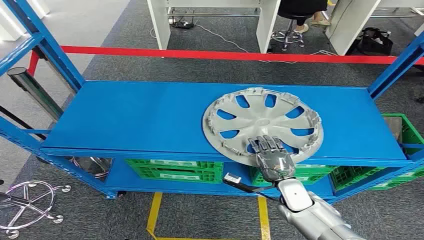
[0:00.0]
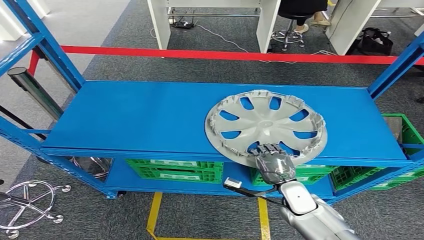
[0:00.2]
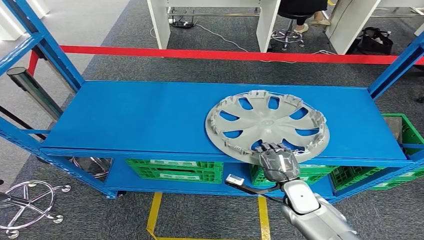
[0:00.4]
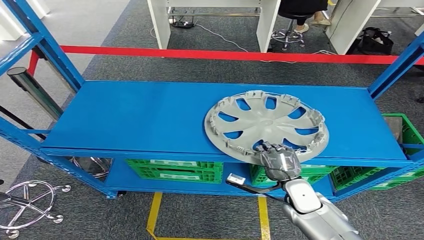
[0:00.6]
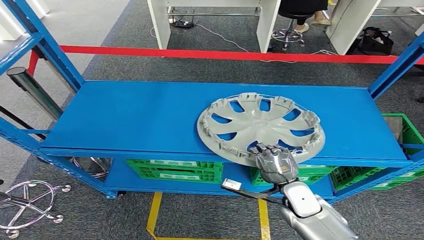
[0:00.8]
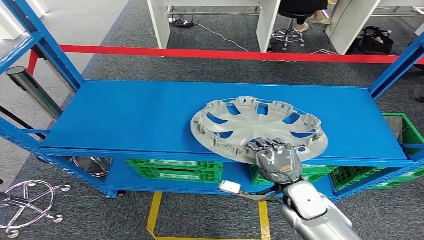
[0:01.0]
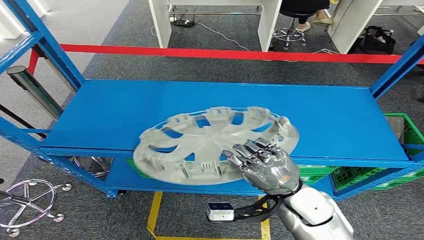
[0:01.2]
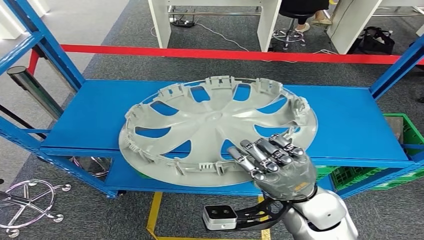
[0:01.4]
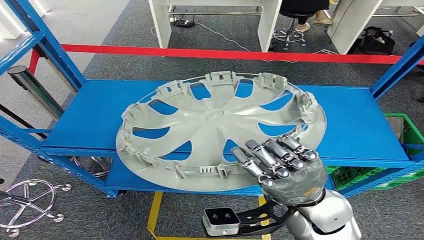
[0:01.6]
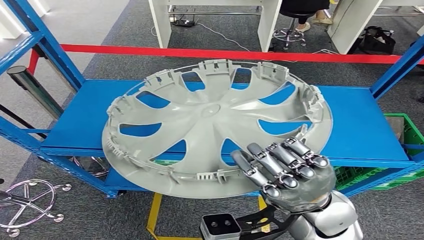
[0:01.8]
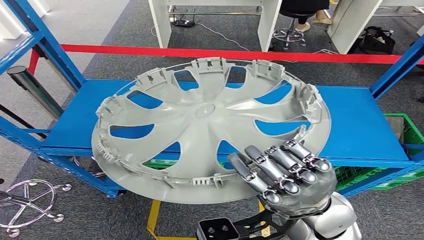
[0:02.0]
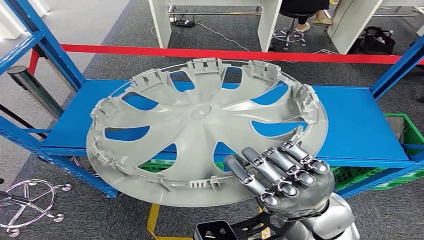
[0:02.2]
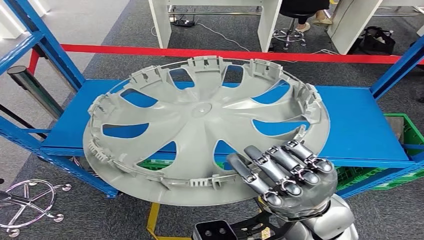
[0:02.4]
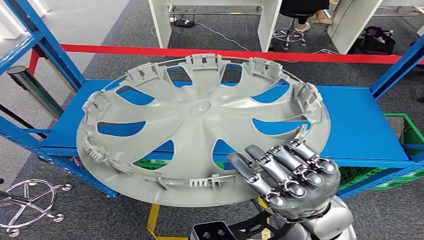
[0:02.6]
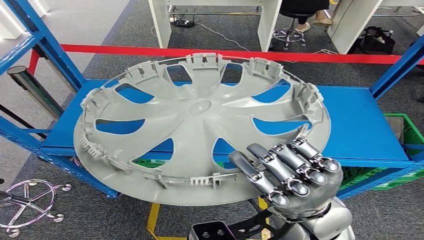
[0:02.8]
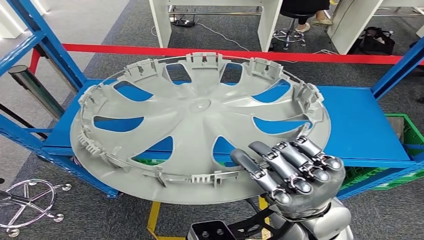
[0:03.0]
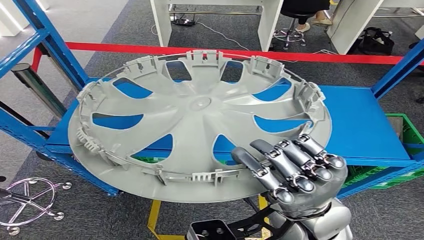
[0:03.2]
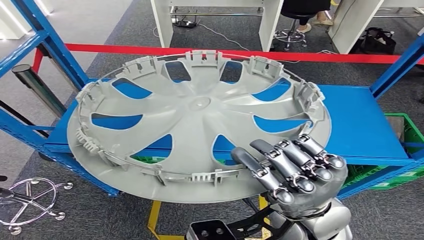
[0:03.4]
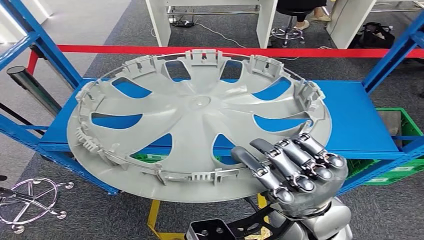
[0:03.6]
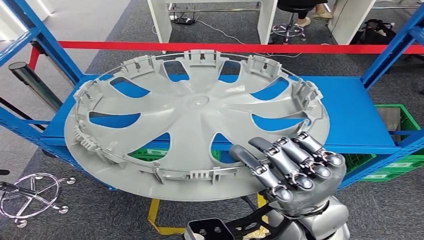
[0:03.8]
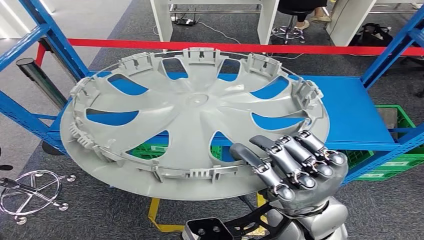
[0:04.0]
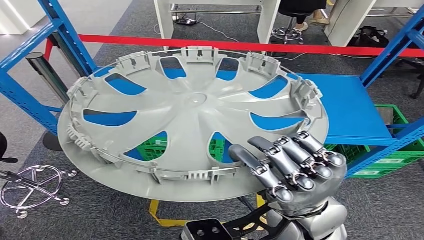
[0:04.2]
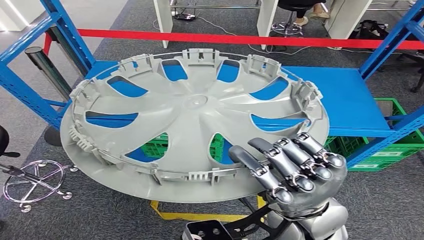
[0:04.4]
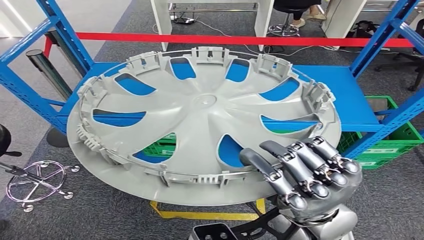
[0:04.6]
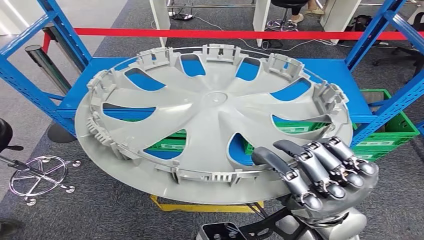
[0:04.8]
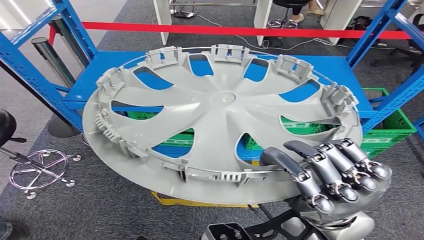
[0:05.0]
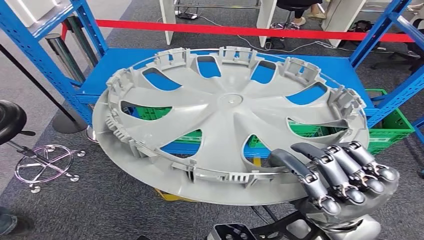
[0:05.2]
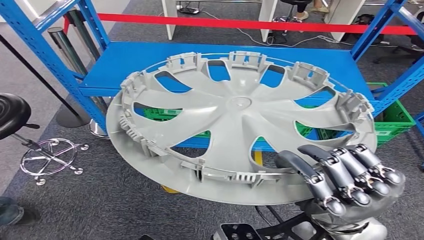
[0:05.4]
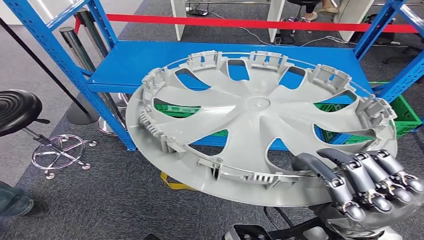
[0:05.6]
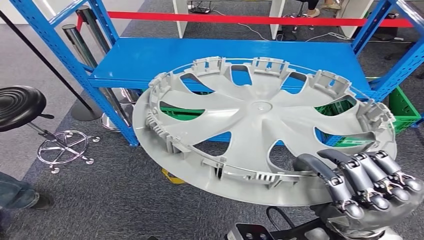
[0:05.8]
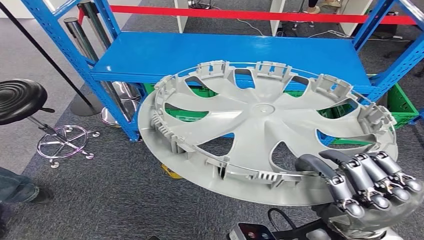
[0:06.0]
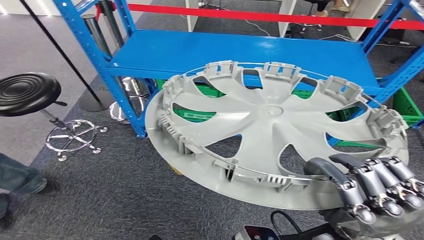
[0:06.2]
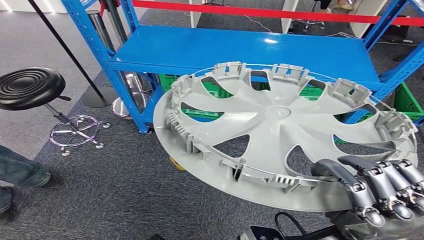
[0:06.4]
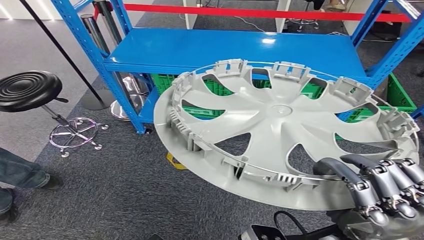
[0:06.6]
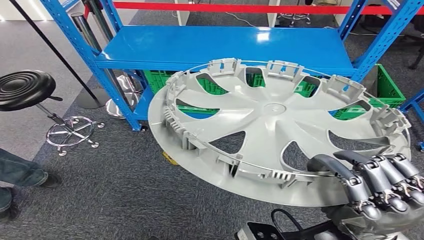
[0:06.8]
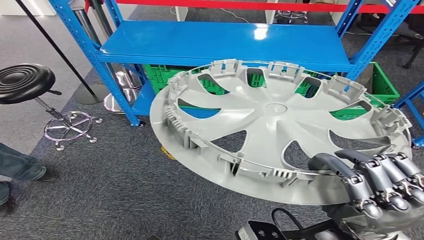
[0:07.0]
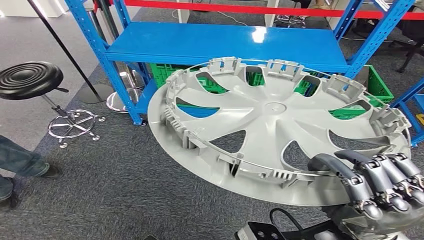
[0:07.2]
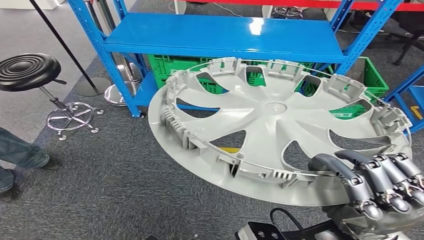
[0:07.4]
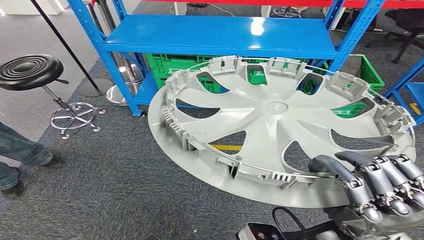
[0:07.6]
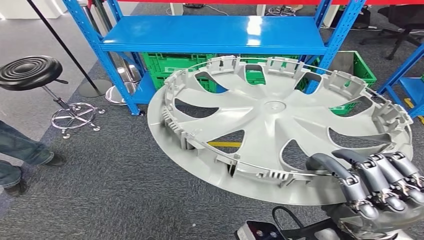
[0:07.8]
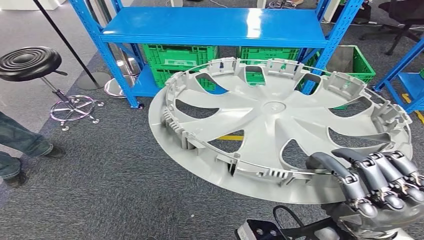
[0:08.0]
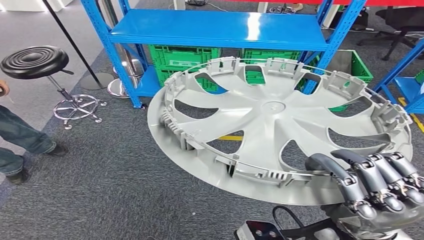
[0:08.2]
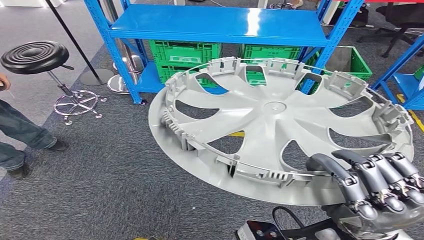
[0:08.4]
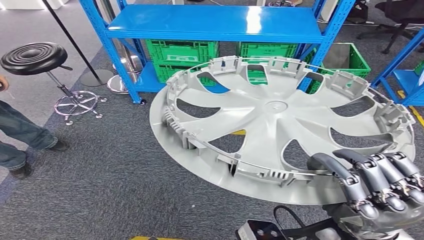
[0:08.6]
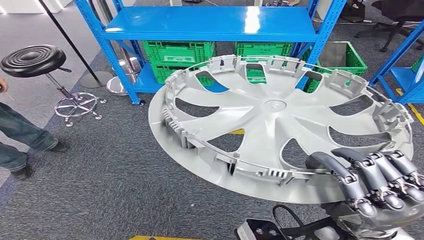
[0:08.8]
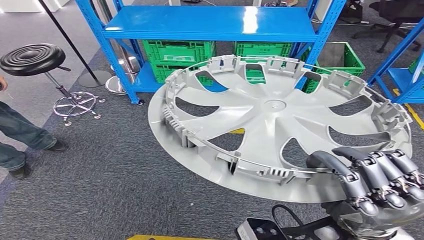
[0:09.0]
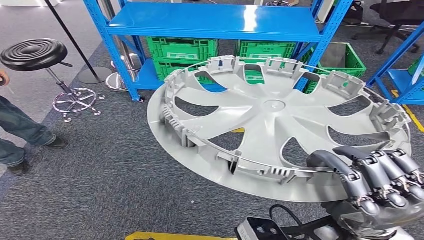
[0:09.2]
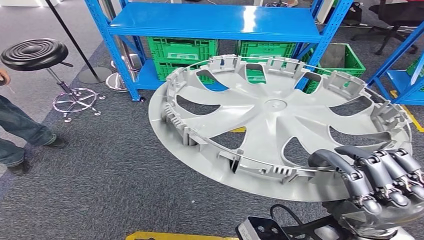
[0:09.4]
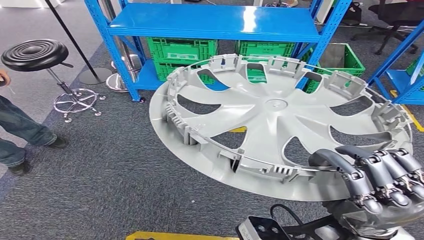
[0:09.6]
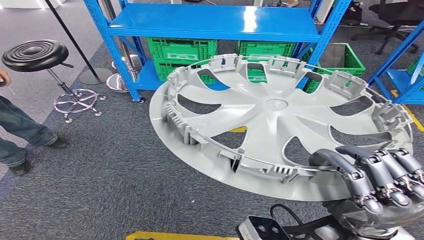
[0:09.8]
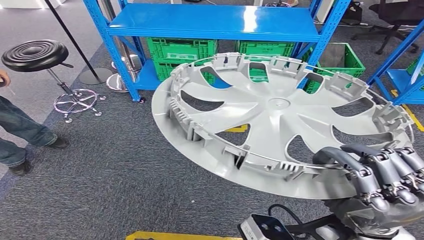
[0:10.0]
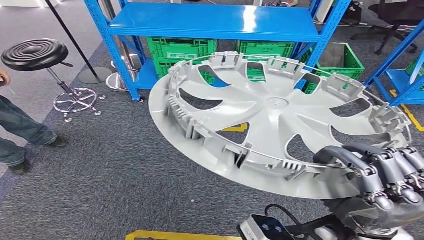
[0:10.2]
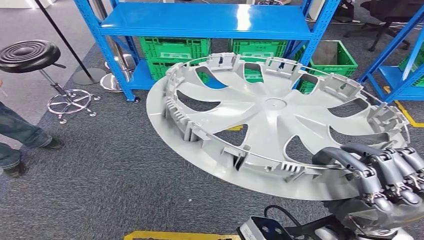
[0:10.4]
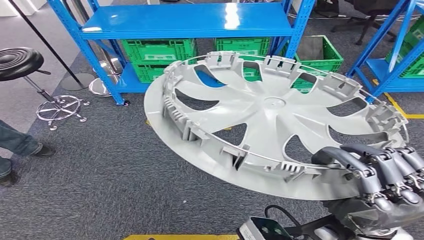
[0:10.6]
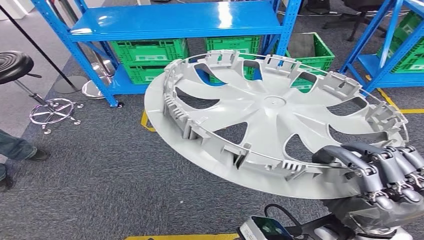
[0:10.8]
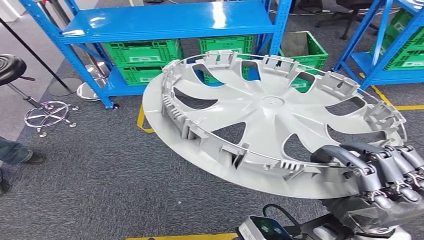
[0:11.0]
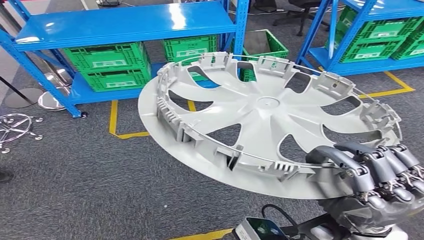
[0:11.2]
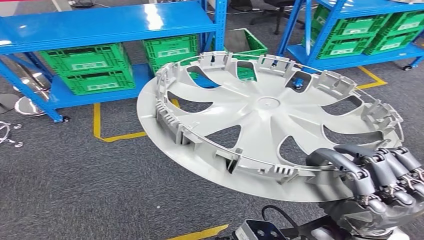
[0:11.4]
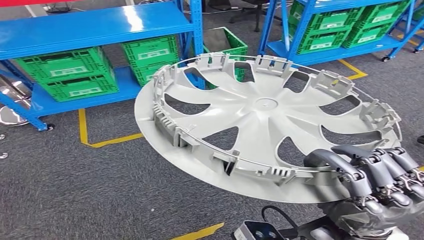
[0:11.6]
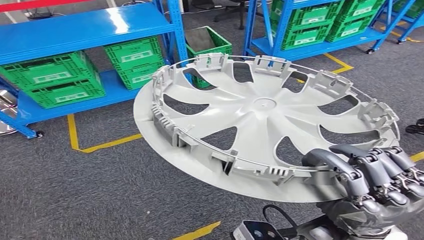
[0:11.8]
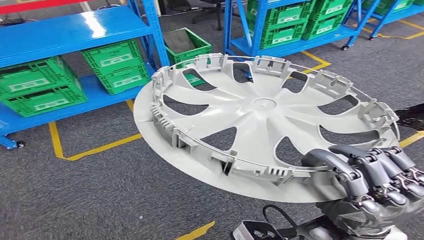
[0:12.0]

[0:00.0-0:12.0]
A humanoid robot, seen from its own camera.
Step, 0:00.0 to 0:04.0: Pick up the small component from the shelf.

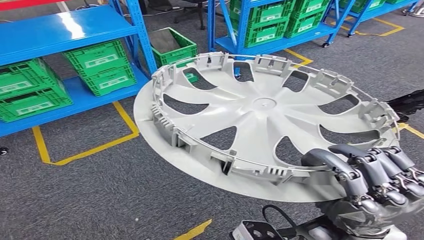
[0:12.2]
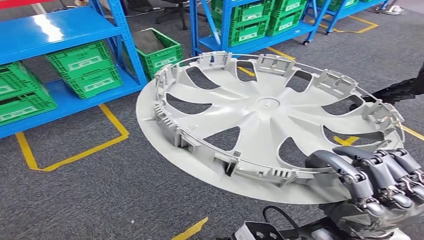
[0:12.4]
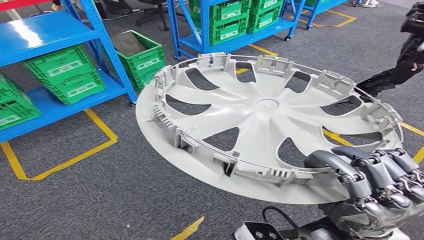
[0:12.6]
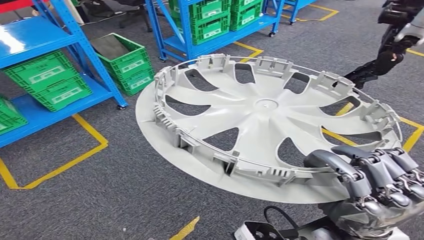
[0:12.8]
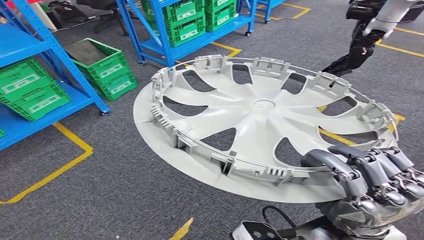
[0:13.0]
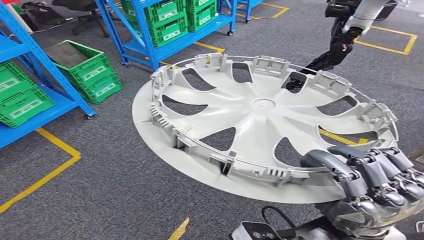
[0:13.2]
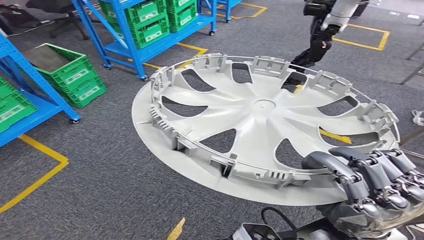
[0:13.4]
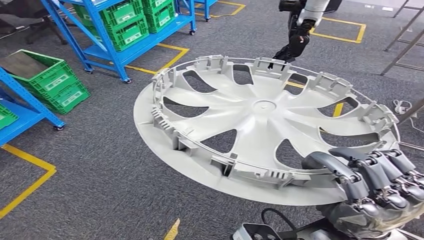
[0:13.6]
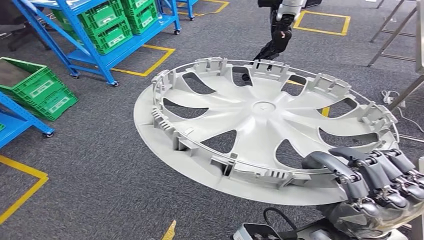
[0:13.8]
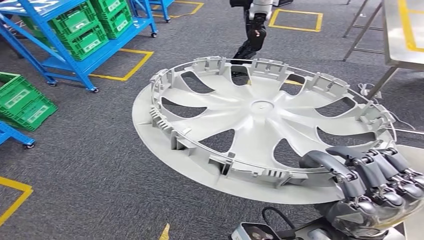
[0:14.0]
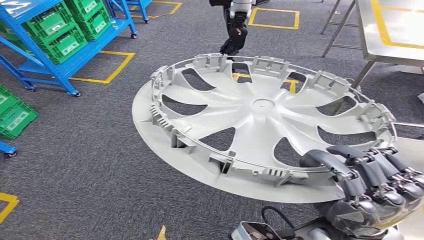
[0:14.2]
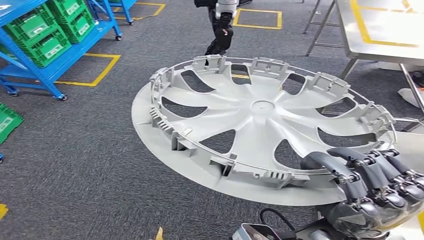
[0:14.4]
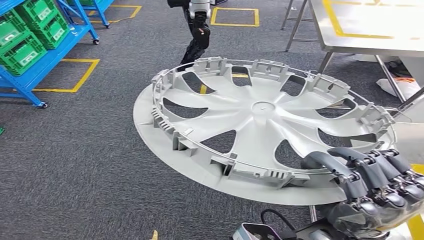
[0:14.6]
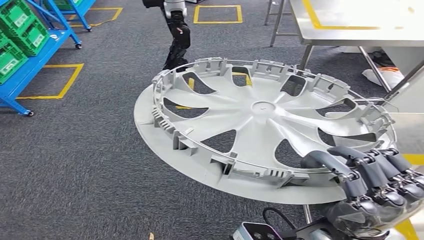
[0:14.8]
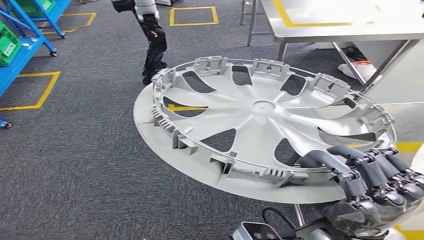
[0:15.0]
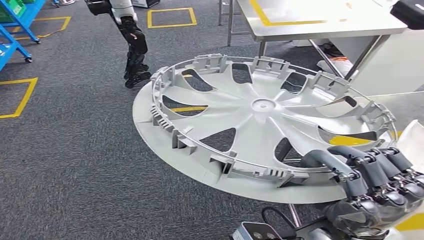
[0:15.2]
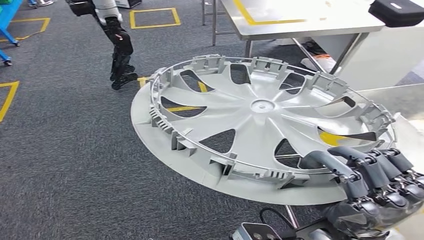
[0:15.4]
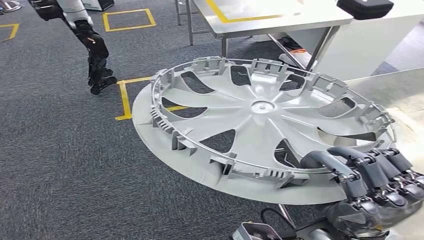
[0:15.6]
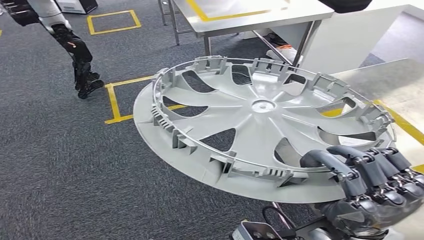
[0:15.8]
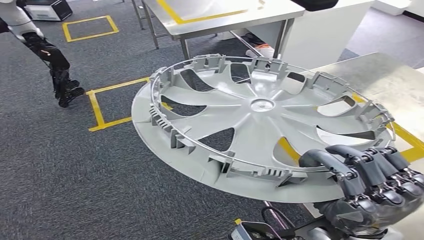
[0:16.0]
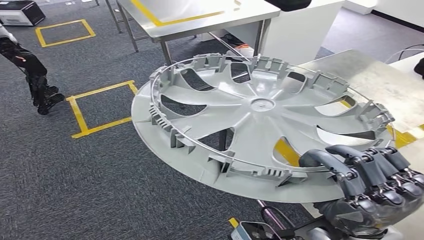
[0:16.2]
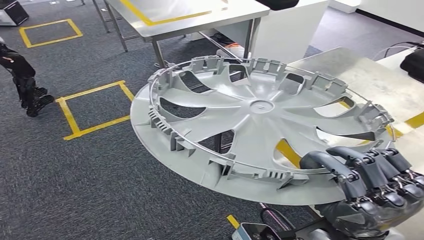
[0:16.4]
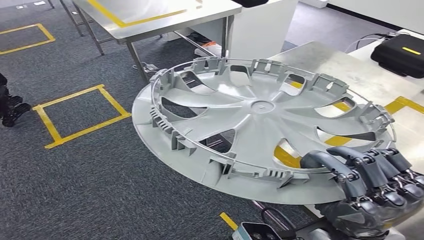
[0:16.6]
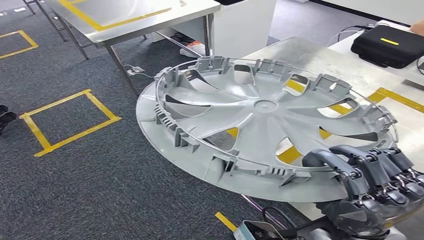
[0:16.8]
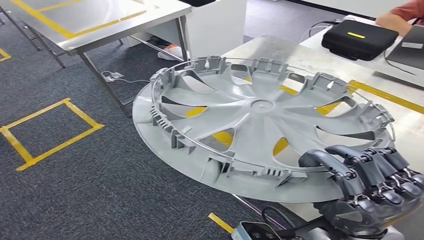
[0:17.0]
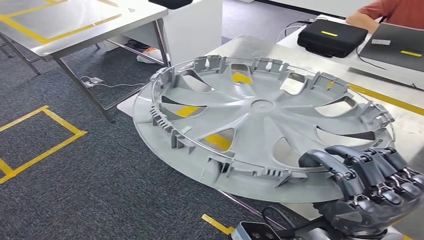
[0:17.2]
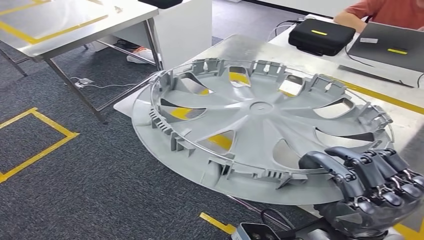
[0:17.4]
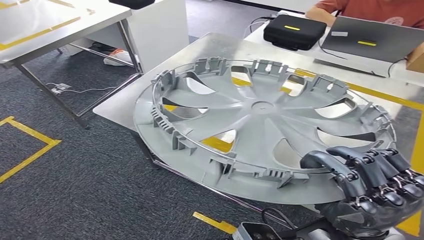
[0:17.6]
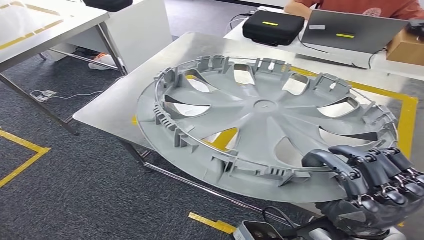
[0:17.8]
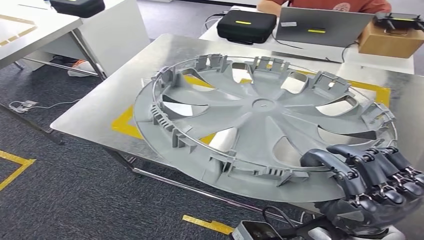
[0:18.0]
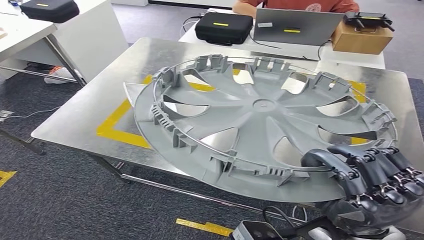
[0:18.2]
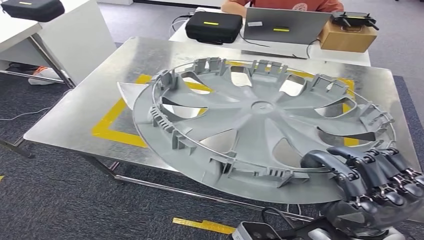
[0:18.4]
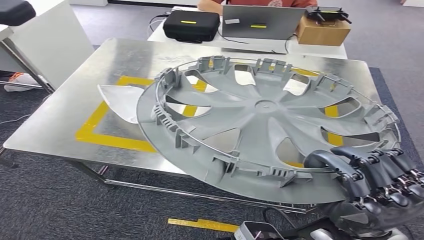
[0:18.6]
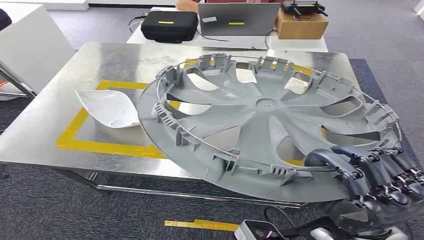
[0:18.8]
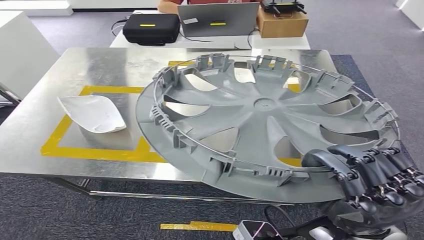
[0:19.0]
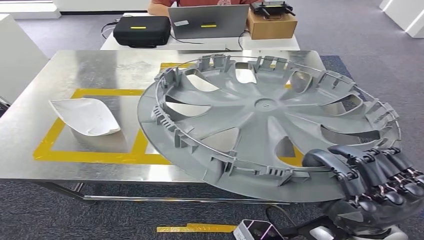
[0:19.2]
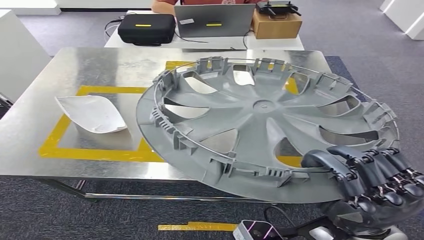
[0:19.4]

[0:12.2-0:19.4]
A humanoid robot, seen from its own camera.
Step, 0:12.2 to 0:18.0: Move the small component to the workbench.
